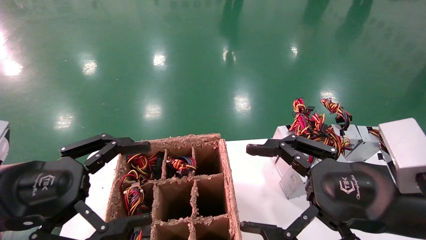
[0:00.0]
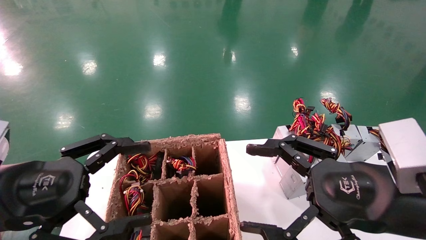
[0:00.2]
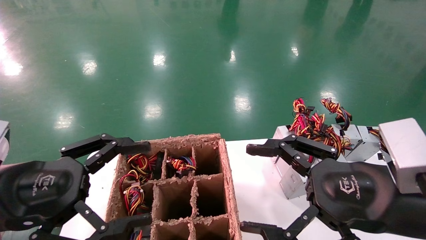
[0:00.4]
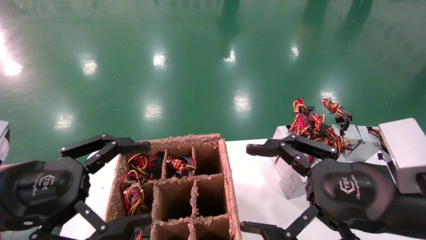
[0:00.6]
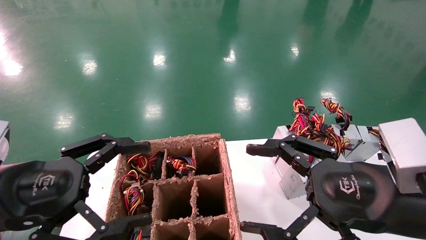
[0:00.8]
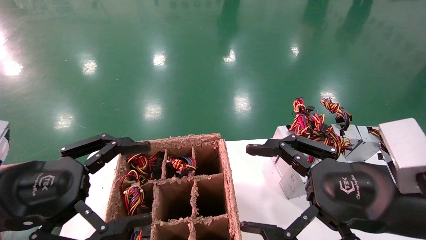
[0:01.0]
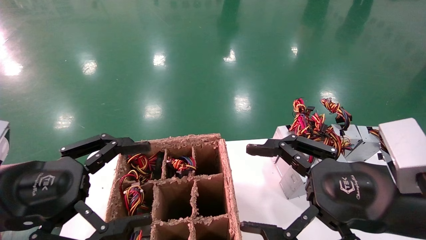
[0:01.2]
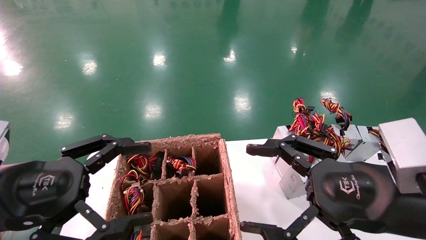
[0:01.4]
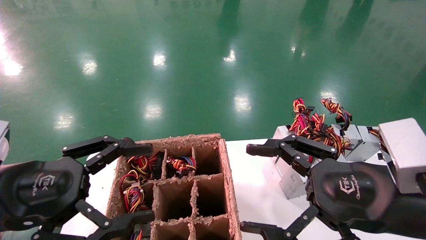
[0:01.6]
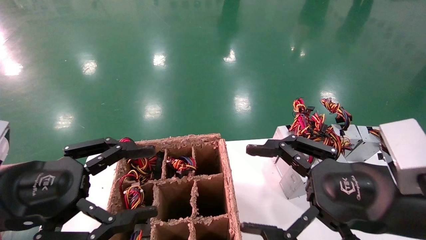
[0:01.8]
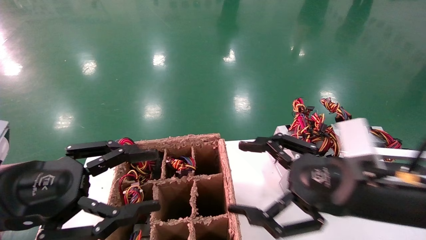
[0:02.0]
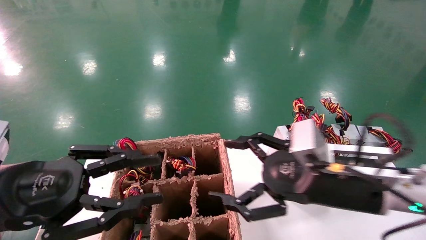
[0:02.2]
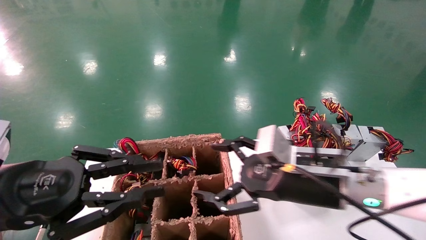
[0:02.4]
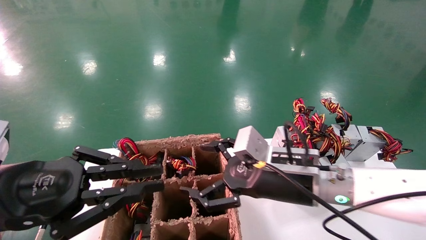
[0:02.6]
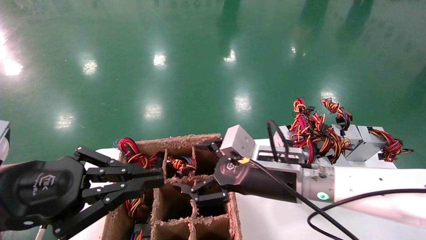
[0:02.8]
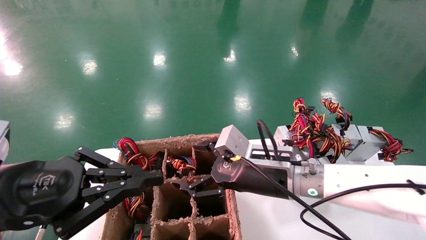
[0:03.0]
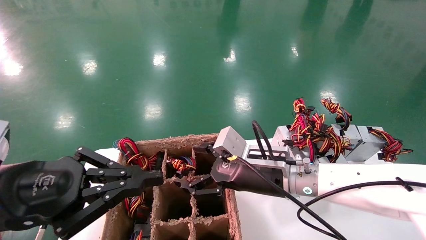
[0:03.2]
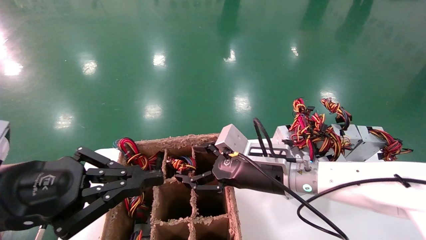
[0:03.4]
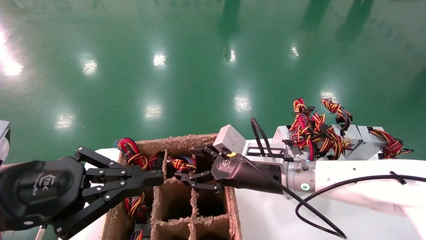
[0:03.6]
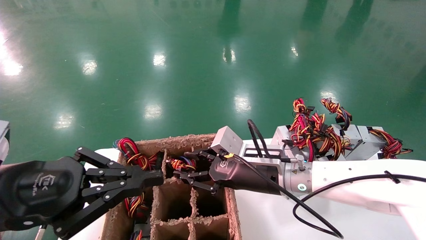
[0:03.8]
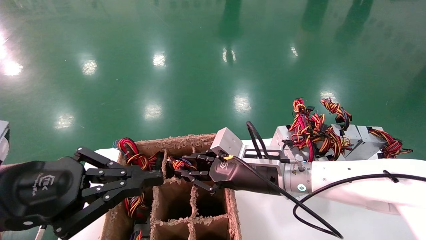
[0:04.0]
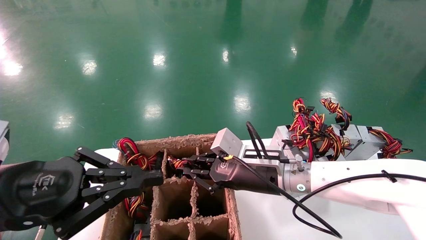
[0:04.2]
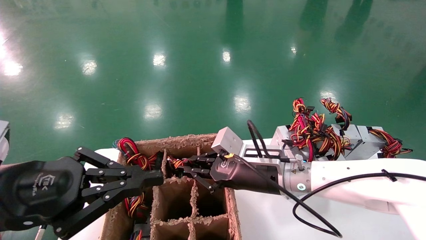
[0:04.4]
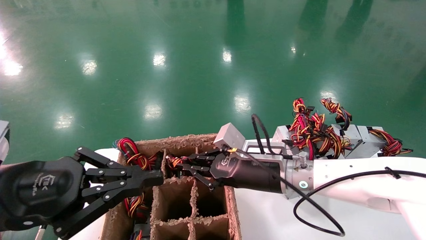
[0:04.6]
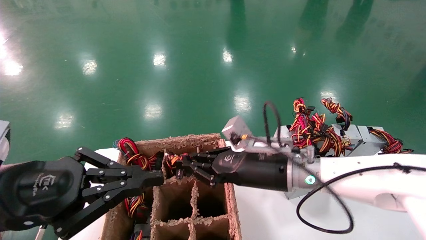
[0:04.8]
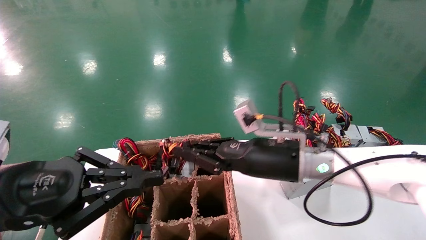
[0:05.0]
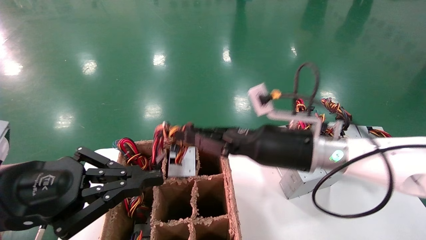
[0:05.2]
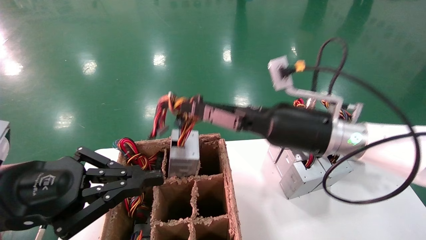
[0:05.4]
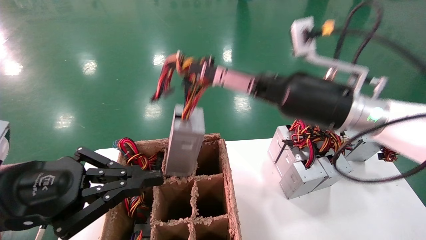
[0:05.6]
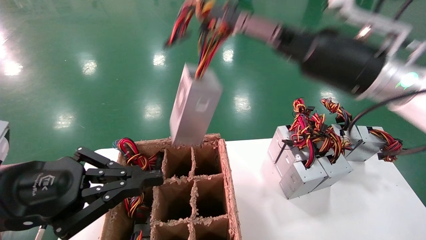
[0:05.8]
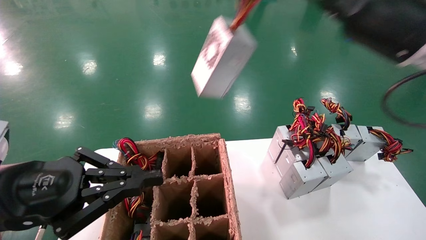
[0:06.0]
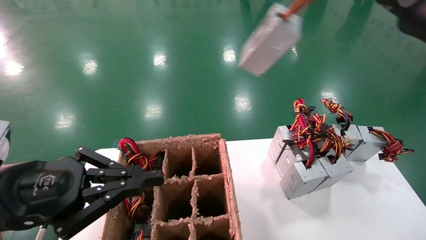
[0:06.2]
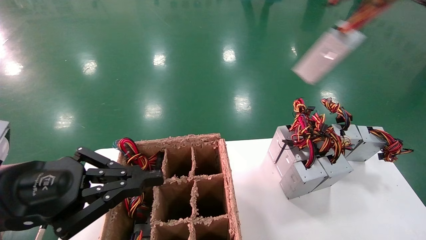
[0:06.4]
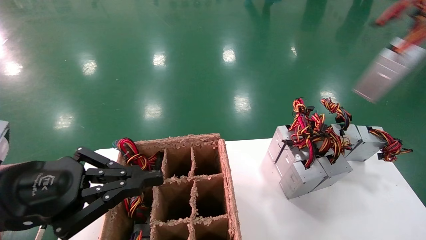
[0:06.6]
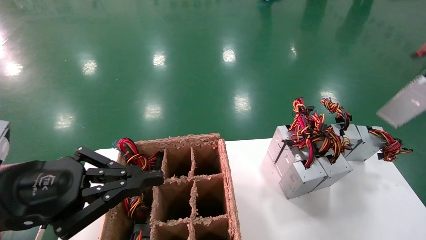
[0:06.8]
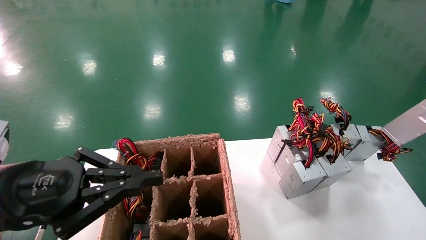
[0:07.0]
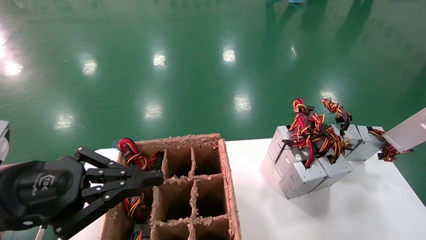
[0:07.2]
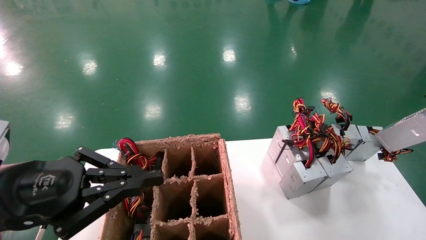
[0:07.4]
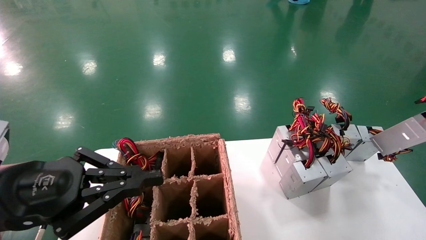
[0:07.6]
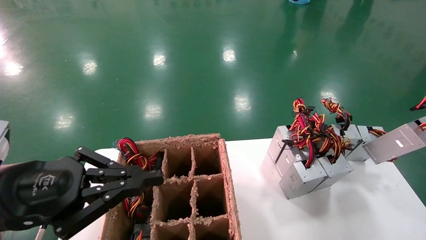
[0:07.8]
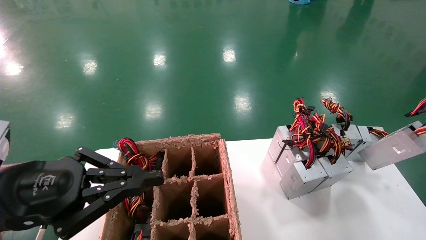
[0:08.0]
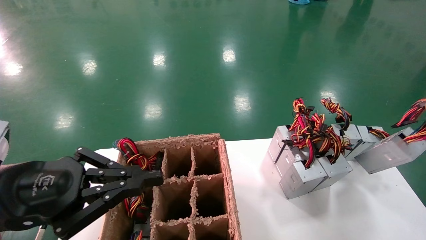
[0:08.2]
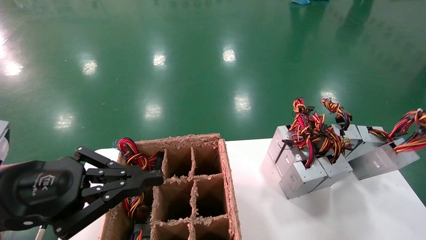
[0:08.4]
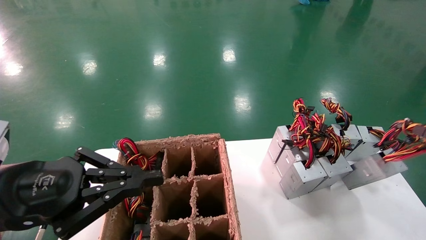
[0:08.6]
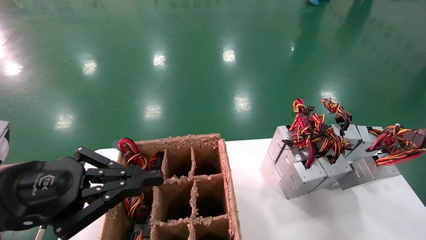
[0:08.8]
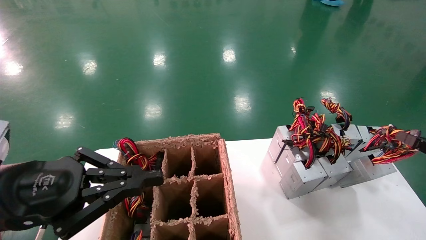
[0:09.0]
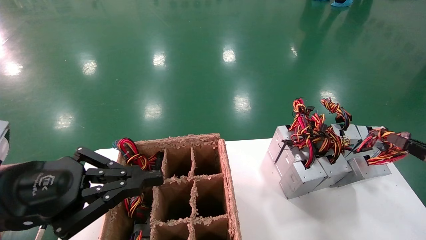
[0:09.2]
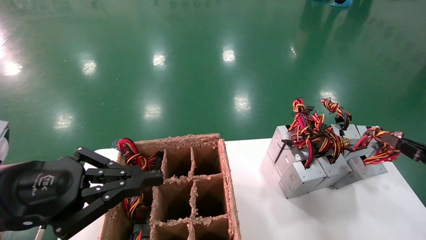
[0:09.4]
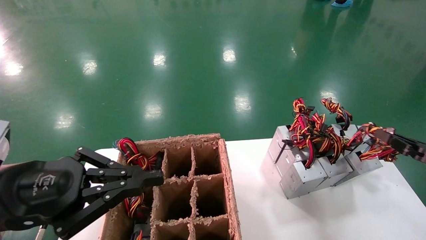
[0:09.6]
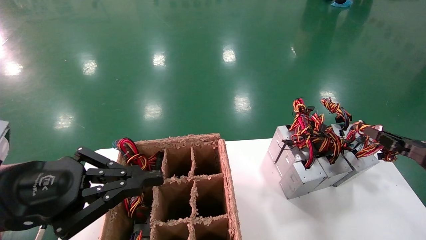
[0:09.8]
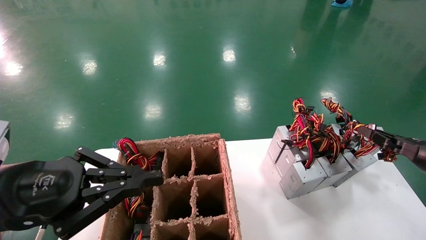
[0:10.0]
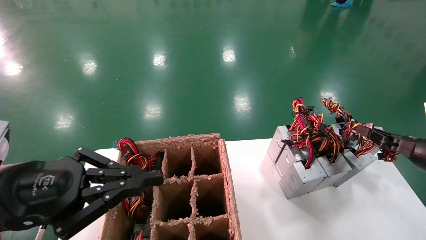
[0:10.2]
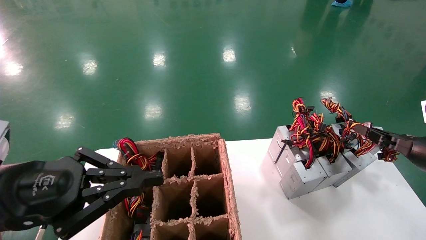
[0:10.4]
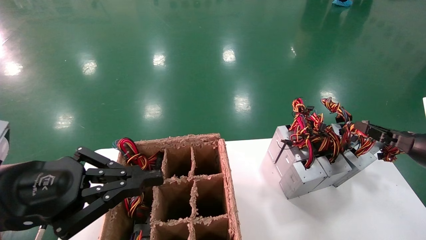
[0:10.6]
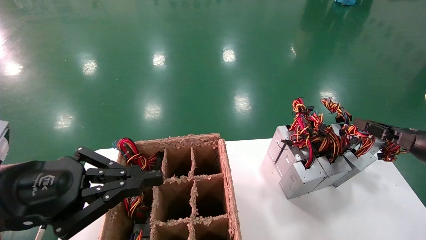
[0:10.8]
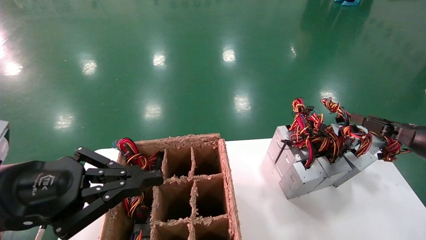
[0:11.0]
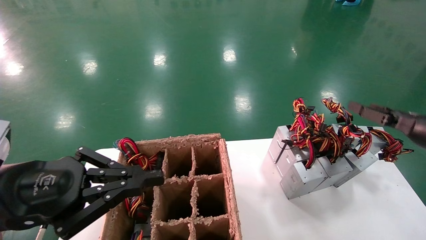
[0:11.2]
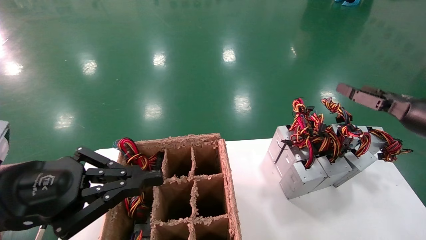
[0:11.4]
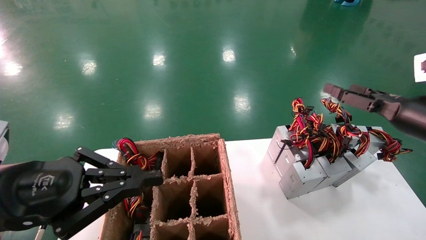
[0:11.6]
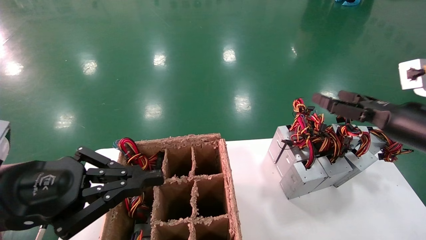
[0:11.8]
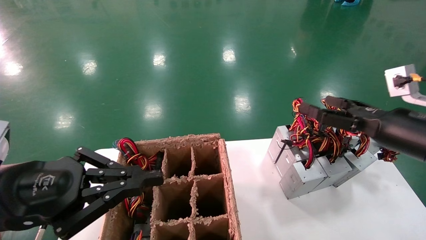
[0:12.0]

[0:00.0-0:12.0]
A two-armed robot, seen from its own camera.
Step, 0:02.2 to 0:04.4: Grab the main unit power supply from the containment box.
Step, 0:04.6 to 0:10.6: Place the main unit power supply in the designated area.
0:00.0 to 0:01.6: Both grippers stay about where they are.
0:01.6 to 0:03.0: The right gripper moves forward, to the left and downward, about 20 cm, while the left gripper closes.
0:03.0 to 0:04.4: The right gripper closes up.
0:04.4 to 0:06.0: The right gripper heads upward and to the right, covering roughly 25 cm.
0:06.0 to 0:07.6: The right gripper is displaced to the right by roughly 30 cm.
0:07.6 to 0:09.0: The right gripper heads downward and to the left, covering about 10 cm.
0:09.0 to 0:10.4: The right gripper moves forward, some 10 cm.
0:10.4 to 0:12.0: The right gripper heads to the left and upward, covering about 10 cm, and opens its fingers.

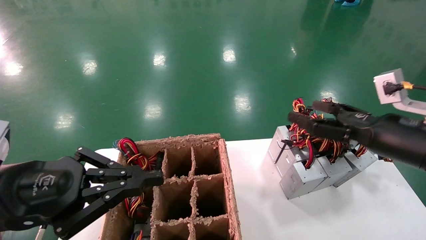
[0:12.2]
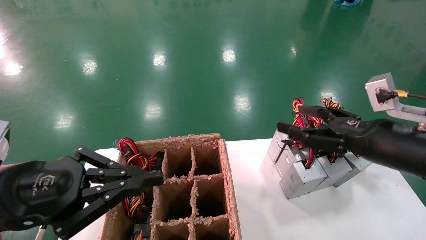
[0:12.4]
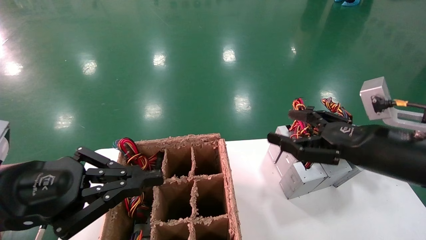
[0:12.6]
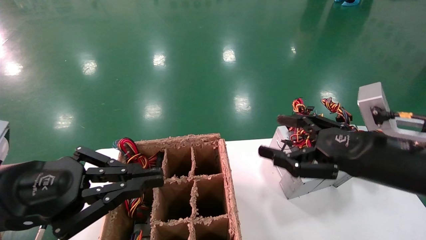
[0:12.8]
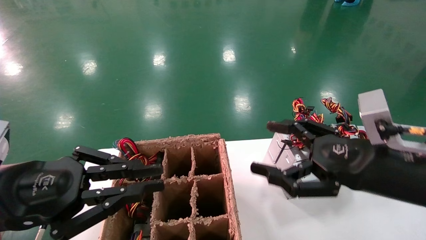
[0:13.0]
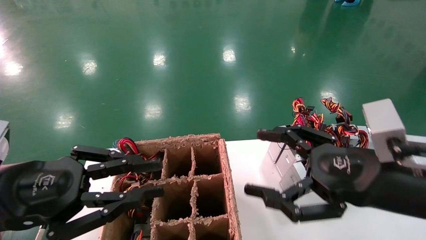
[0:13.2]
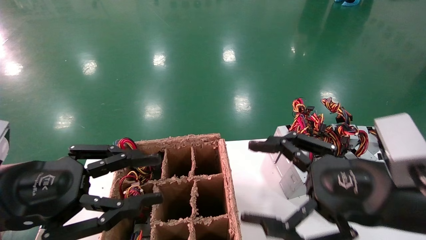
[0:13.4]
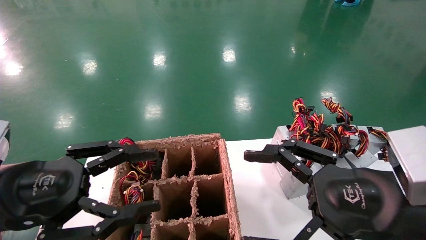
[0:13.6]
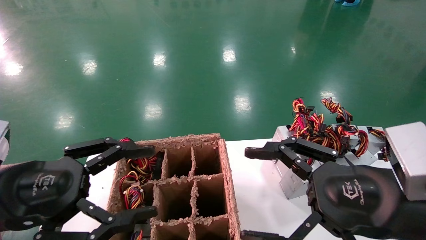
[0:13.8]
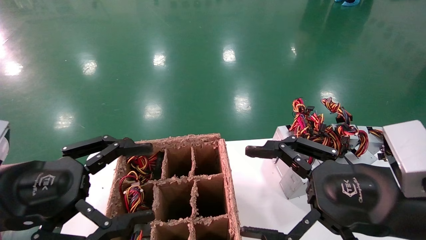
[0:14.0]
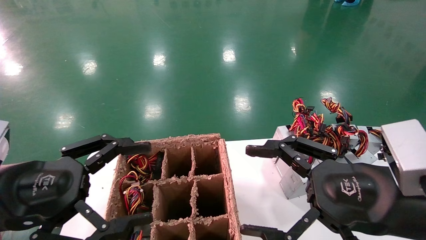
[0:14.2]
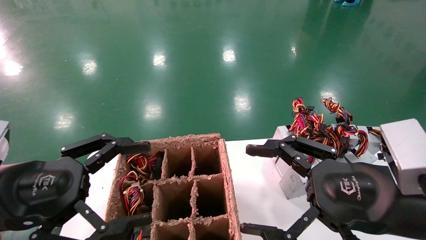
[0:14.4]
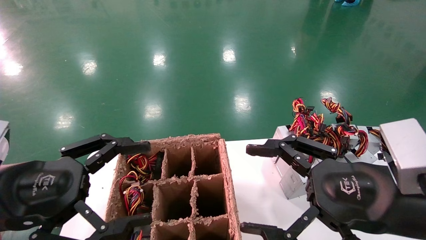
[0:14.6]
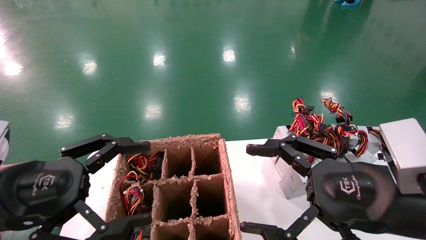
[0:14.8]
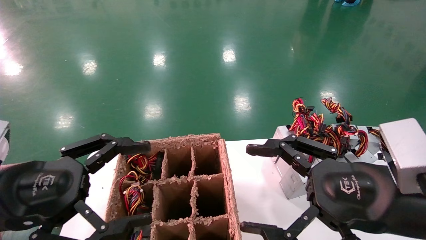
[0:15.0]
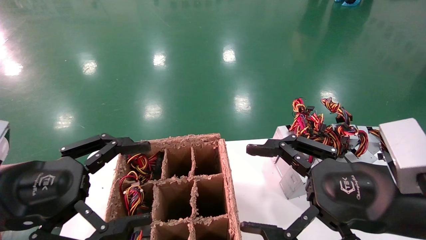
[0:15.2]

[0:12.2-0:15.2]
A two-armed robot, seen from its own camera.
0:12.2 to 0:13.8: The right gripper goes approximately 15 cm backward and to the left, while the left gripper opens its fingers.
0:13.8 to 0:15.2: Both grippers stay about where they are.
